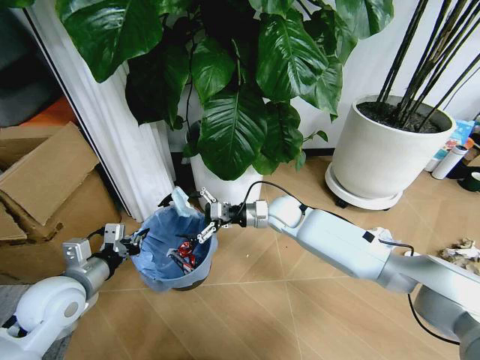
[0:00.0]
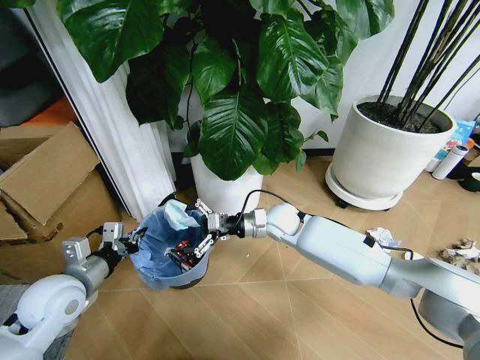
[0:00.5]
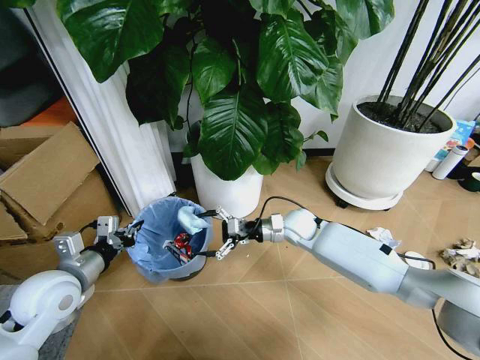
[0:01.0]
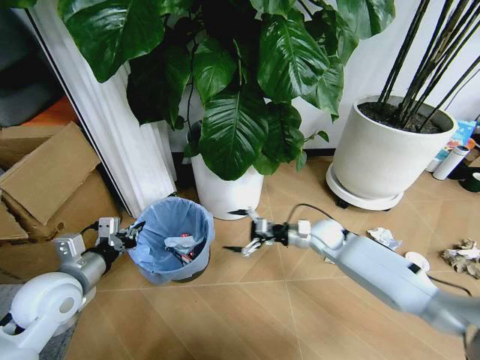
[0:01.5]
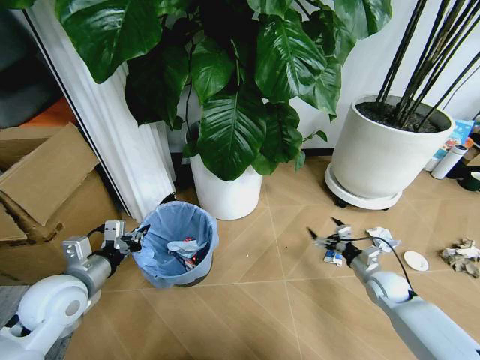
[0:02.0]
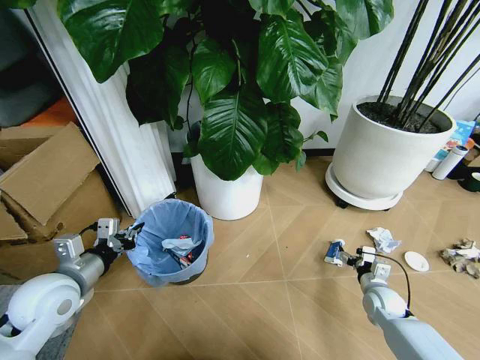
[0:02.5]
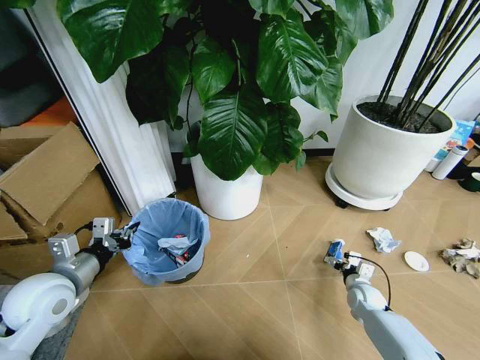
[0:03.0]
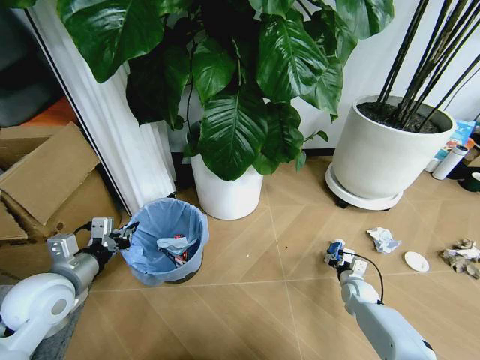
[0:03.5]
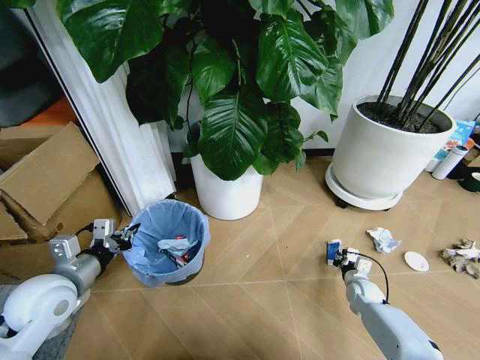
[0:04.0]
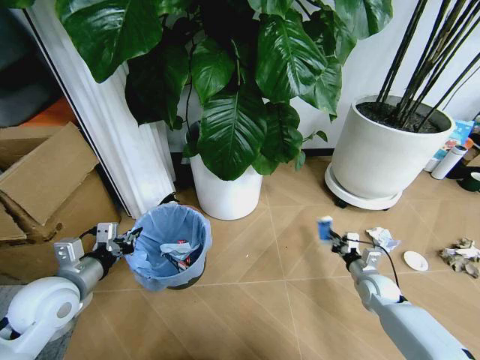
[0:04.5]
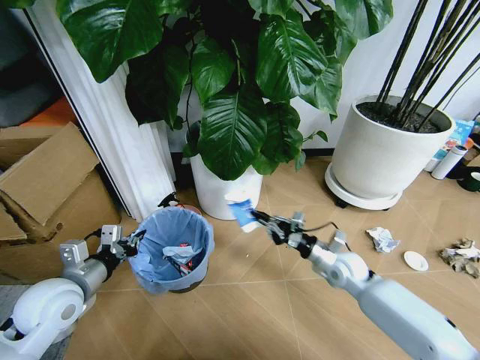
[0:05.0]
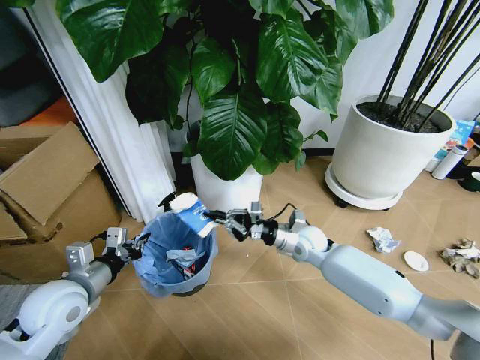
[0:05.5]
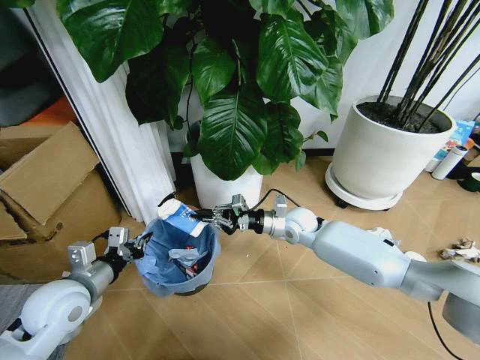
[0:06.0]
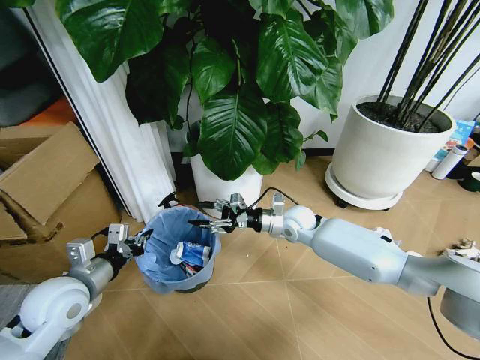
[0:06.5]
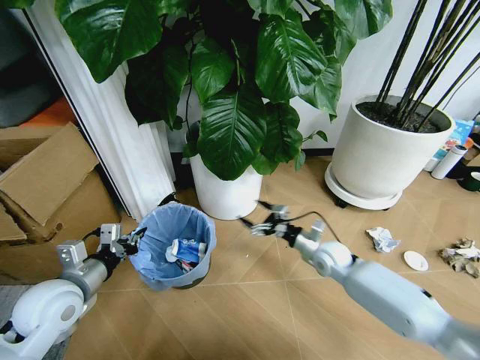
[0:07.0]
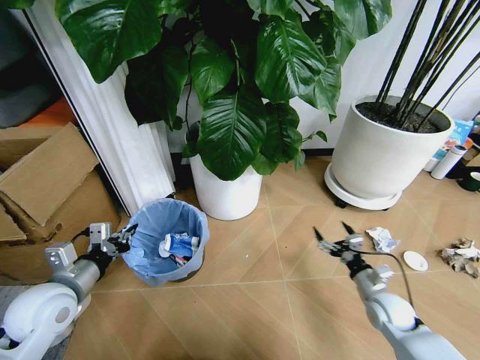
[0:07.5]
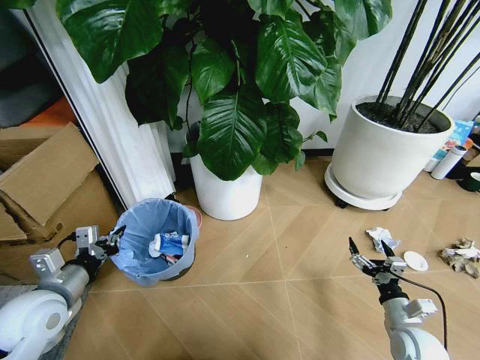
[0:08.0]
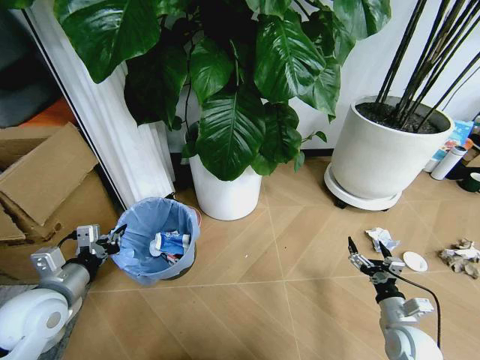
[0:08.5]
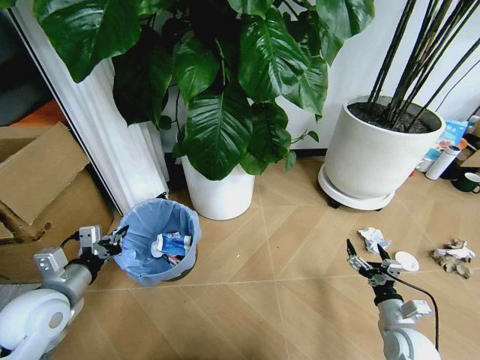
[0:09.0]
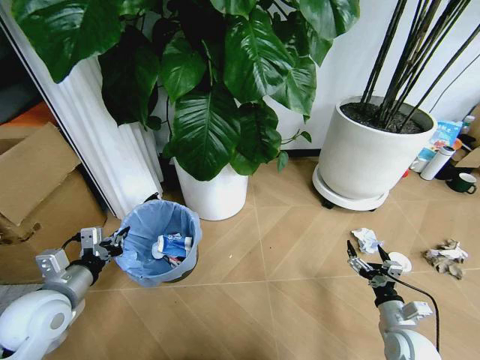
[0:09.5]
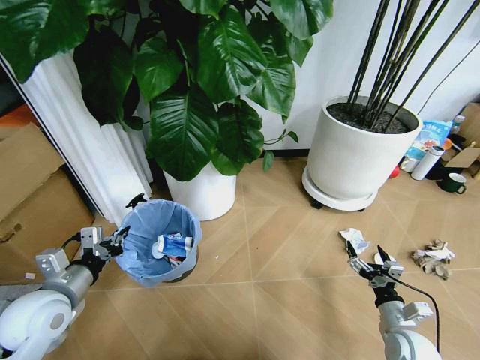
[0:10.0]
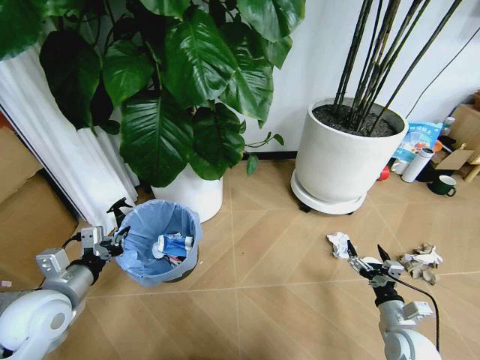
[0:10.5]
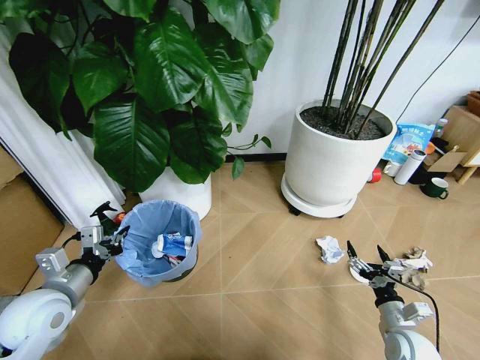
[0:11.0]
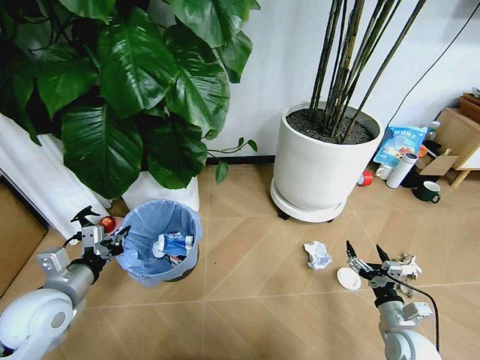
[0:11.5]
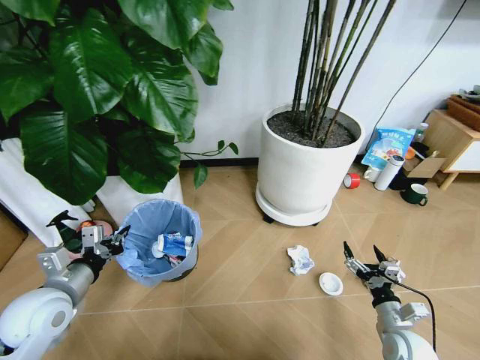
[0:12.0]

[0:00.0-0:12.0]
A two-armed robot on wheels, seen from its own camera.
Task of the whole recording: Pick up the trash bin and place the garbage on the floor into it.
0:00.0 to 0:02.0: The right gripper moves to the right, downward and backward, approximately 35 cm.
0:02.0 to 0:04.0: The right gripper travels downward by approximately 10 cm, and closes its fingers.
0:04.0 to 0:06.0: The right gripper is displaced to the left, upward and forward by approximately 35 cm.
0:06.0 to 0:08.0: The right gripper moves backward, to the right and downward, about 40 cm, and opens its fingers.

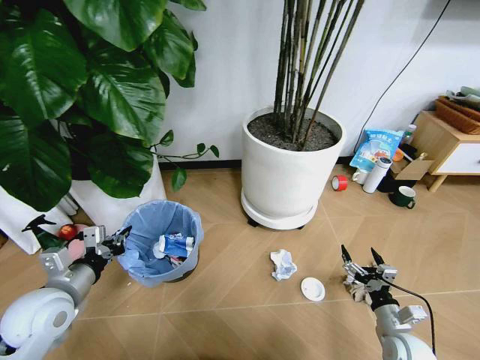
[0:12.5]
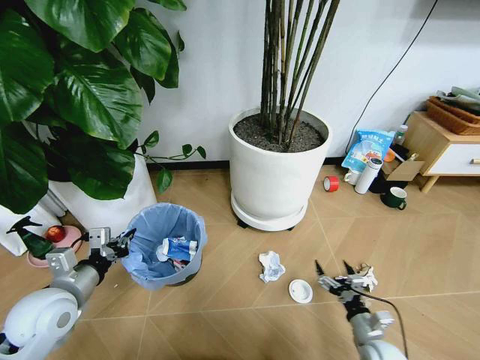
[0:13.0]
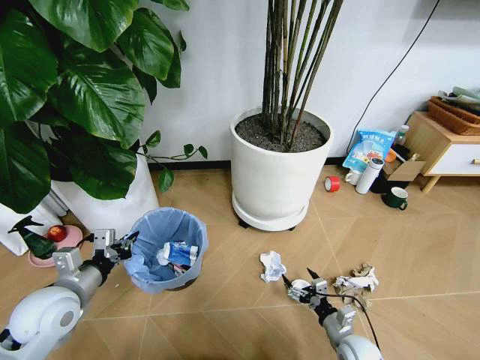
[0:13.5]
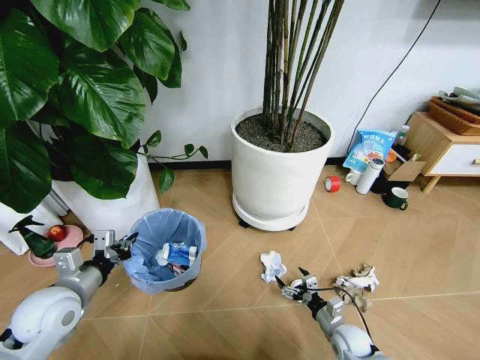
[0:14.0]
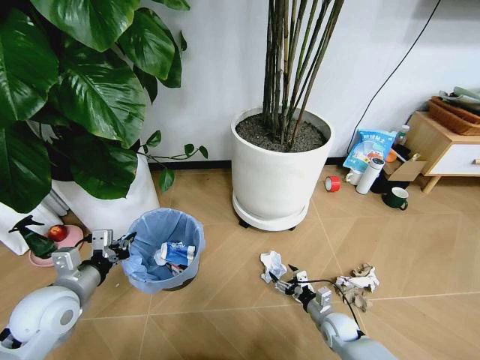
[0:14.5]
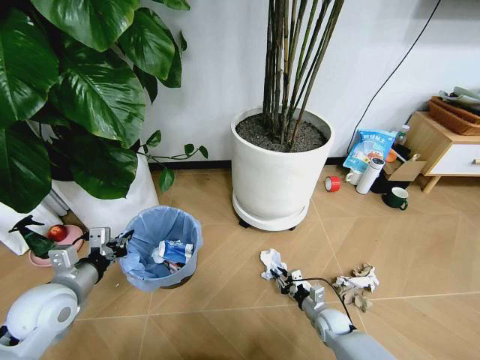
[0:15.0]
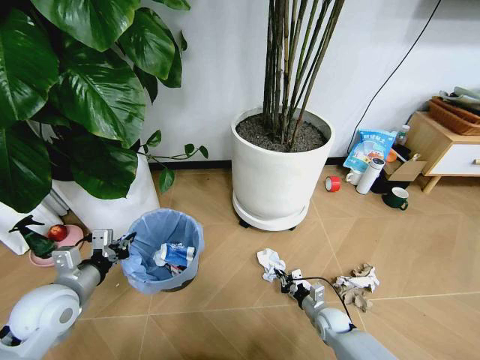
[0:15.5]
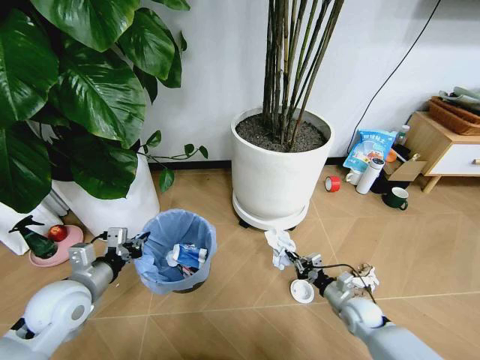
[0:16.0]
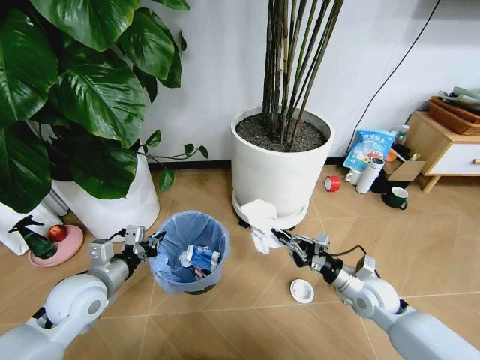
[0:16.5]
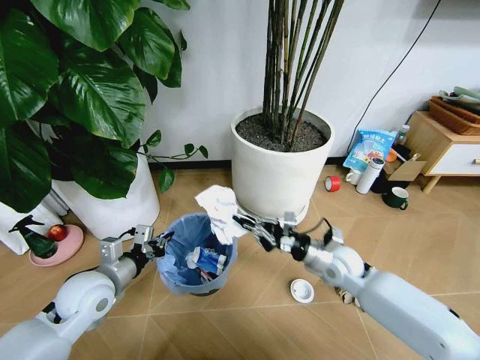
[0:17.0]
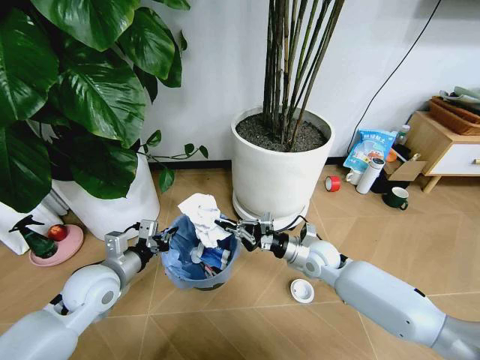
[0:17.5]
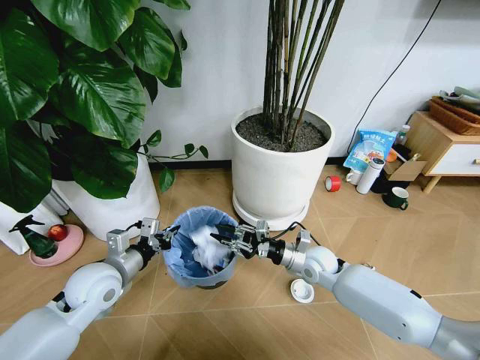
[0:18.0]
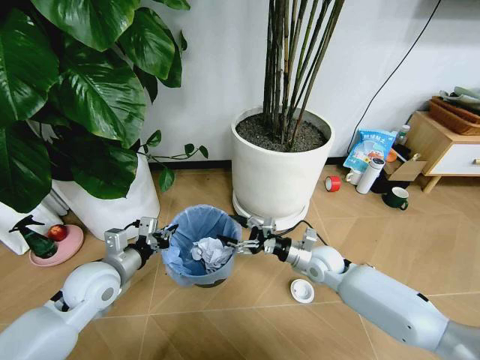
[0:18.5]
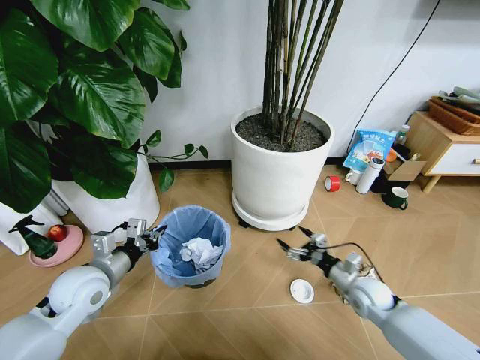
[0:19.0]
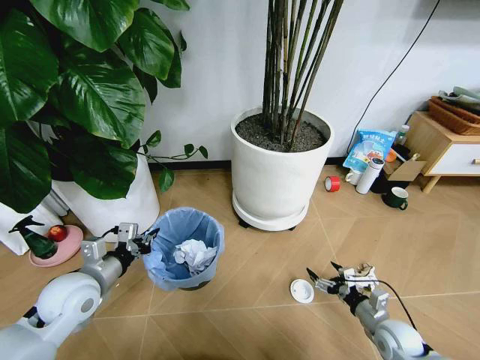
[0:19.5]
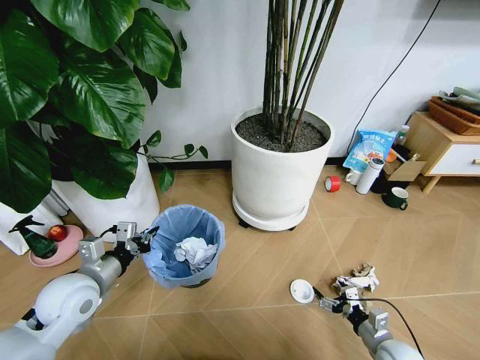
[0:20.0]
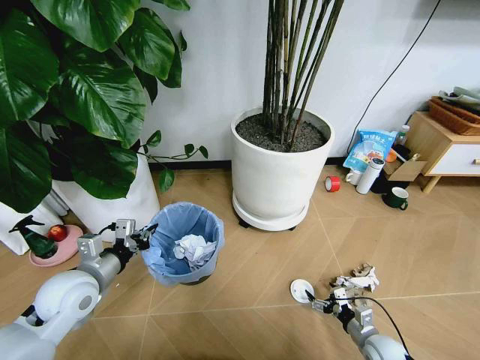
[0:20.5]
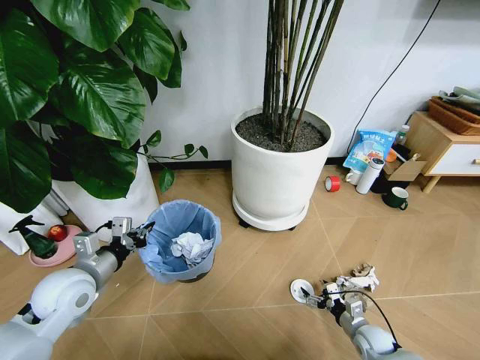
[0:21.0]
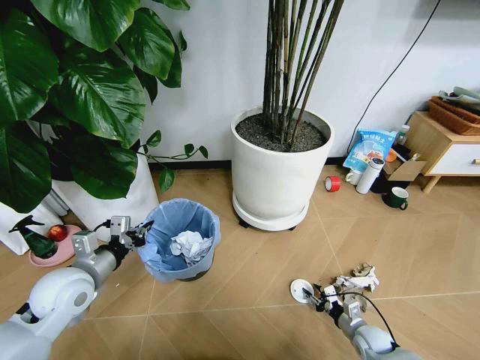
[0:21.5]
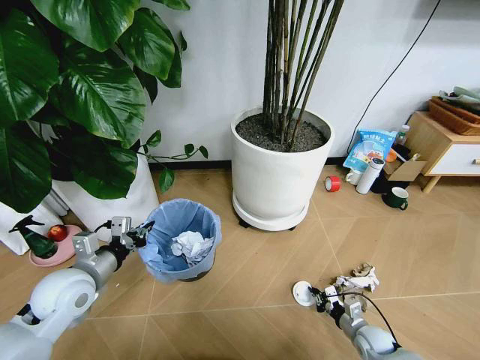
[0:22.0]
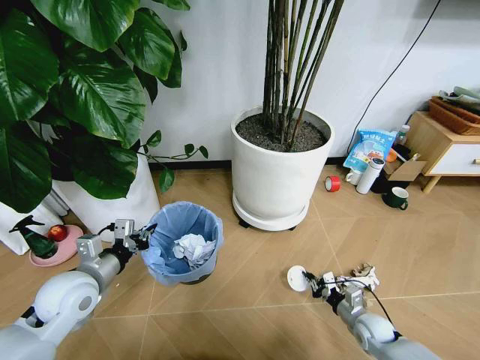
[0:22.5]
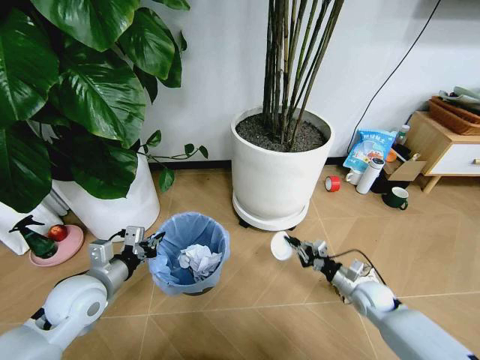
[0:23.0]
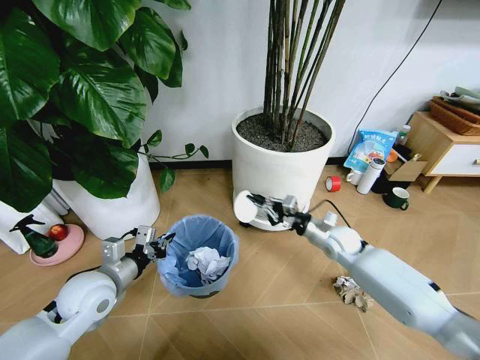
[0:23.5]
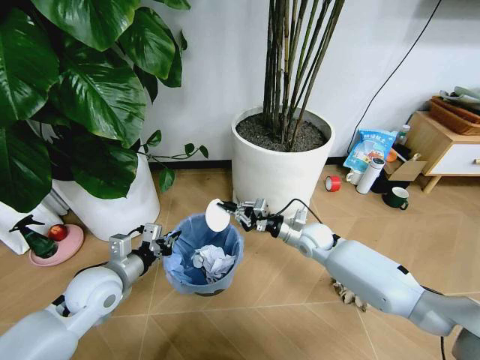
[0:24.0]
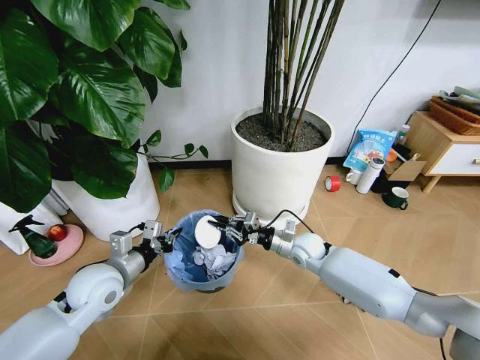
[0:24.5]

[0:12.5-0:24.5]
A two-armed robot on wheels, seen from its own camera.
Task of the whole recording: Pick up the trash bin and place the garbage on the floor into it.
0:12.5 to 0:14.5: The right gripper is displaced to the left, downward and forward by roughly 15 cm.
0:14.5 to 0:16.5: The right gripper heads upward, covering some 20 cm, and closes.
0:16.5 to 0:18.5: The right gripper travels to the left and forward by about 10 cm, and opens.
0:18.5 to 0:20.5: The right gripper travels backward, downward and to the right by roughly 30 cm.
0:20.5 to 0:22.5: The right gripper changes place by some 5 cm, and closes up.
0:22.5 to 0:24.5: The right gripper moves to the left, forward and upward, about 30 cm.

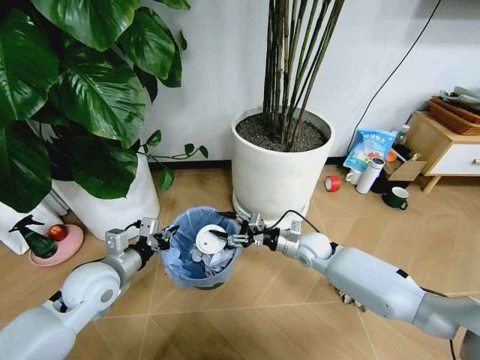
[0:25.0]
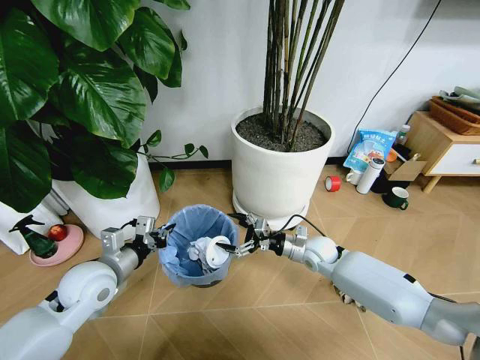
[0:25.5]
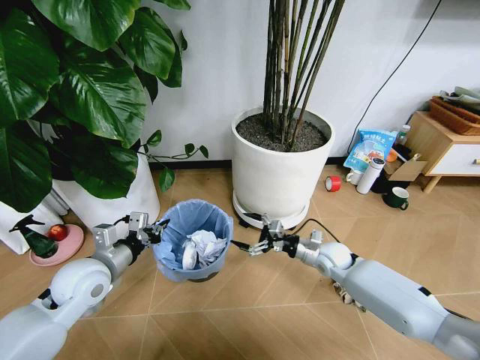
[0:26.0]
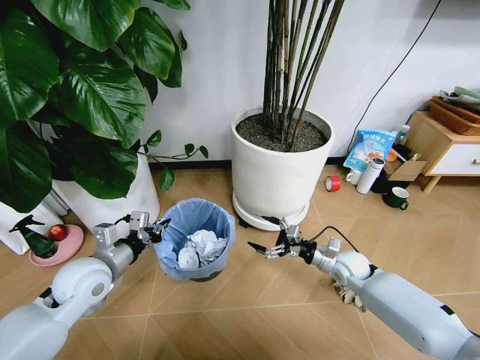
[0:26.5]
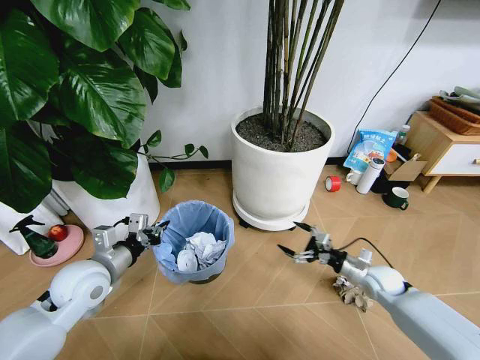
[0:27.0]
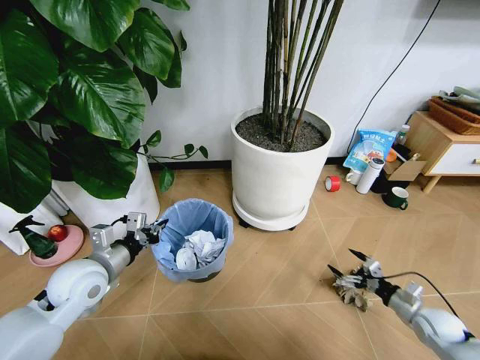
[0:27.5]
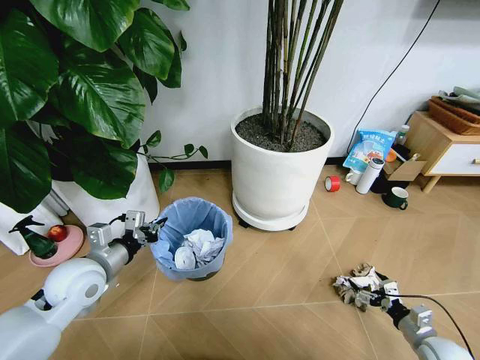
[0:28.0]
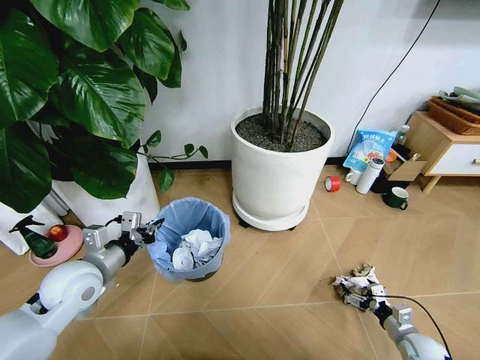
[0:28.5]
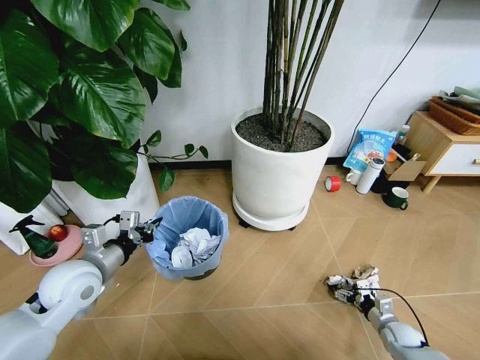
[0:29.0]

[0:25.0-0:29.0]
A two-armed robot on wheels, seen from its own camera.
Task of the whole recording: Pick up the trash bin and place the garbage on the floor into it.
0:25.0 to 0:27.0: The right gripper shifts approximately 20 cm to the right and backward, and opens its fingers.
0:27.0 to 0:29.0: The right gripper heads downward, backward and to the right, covering some 20 cm.
